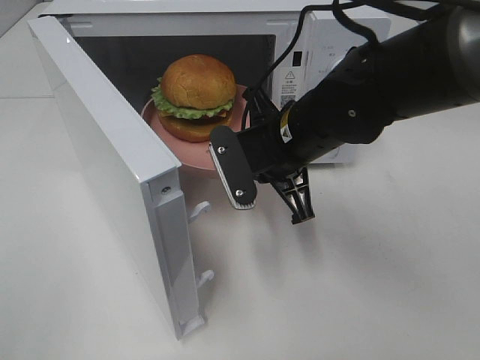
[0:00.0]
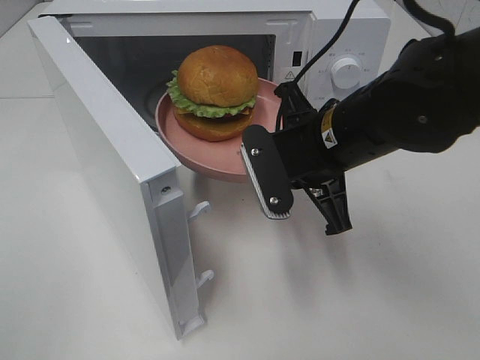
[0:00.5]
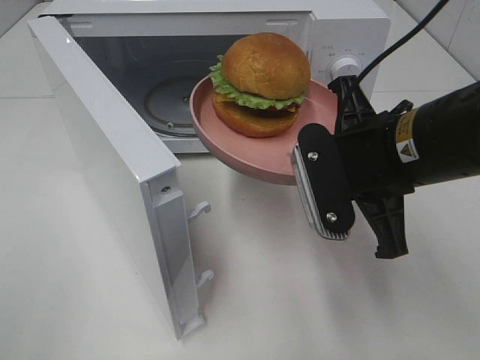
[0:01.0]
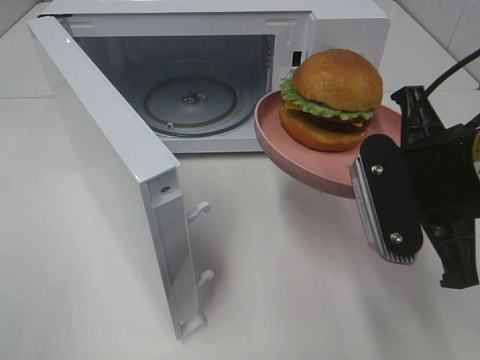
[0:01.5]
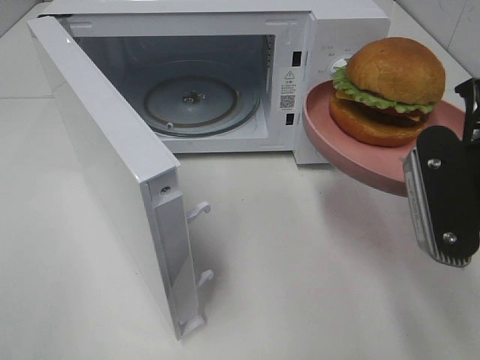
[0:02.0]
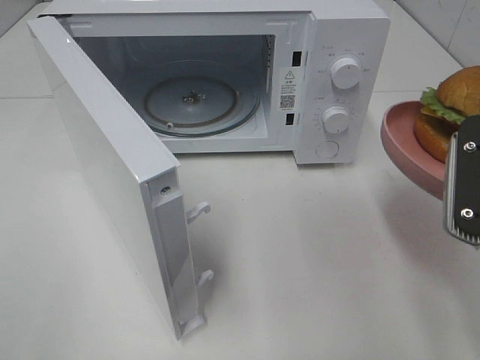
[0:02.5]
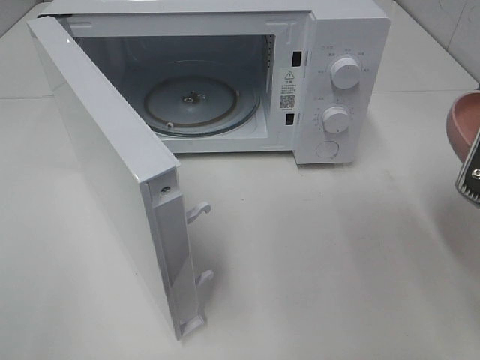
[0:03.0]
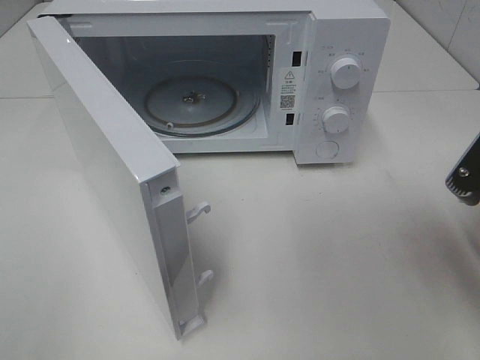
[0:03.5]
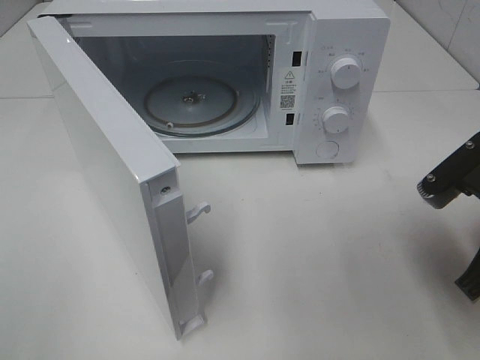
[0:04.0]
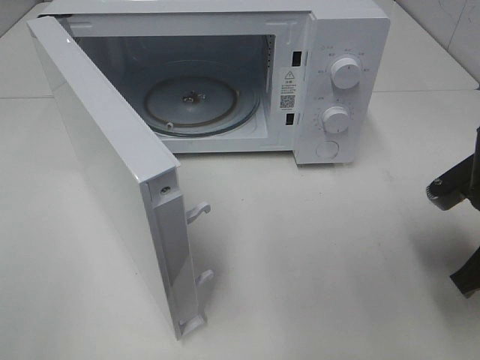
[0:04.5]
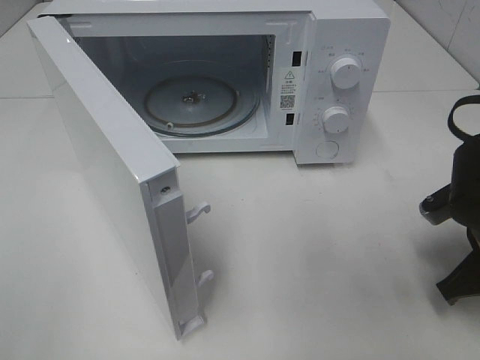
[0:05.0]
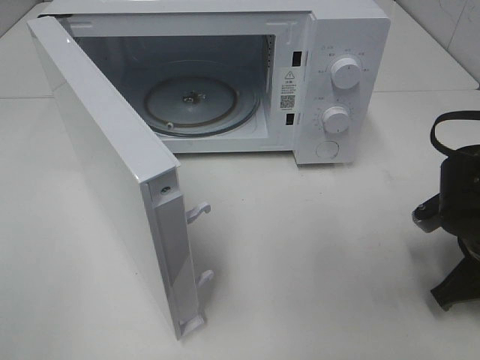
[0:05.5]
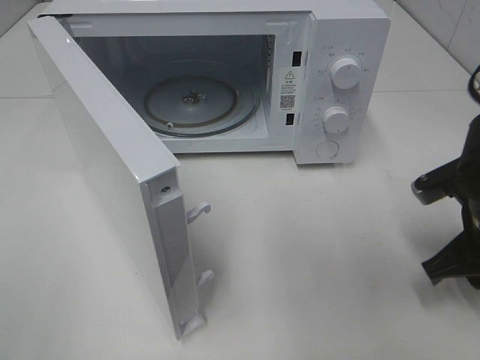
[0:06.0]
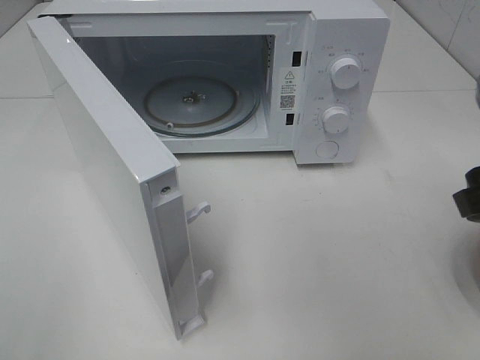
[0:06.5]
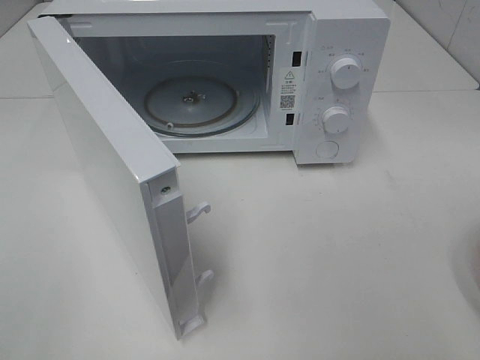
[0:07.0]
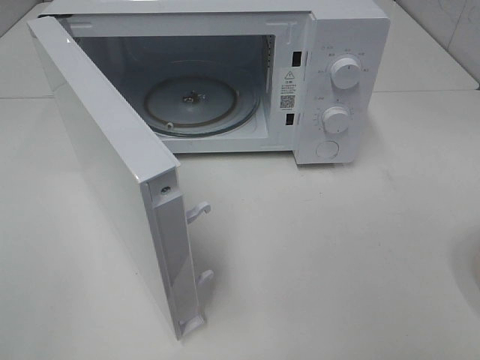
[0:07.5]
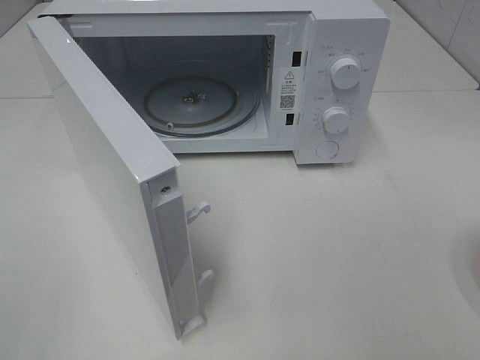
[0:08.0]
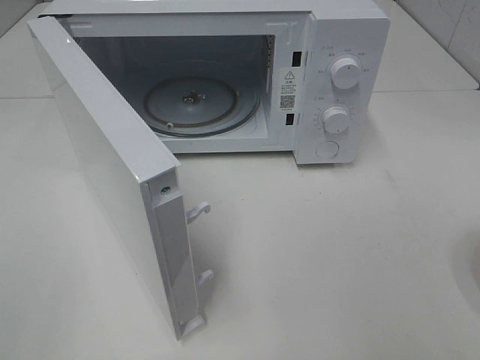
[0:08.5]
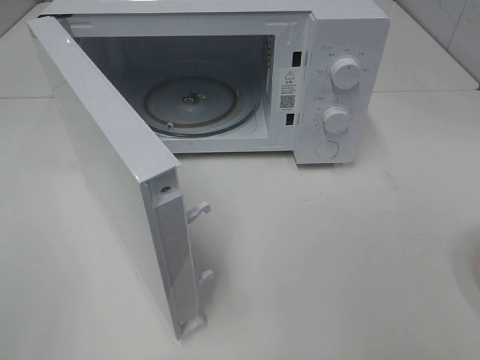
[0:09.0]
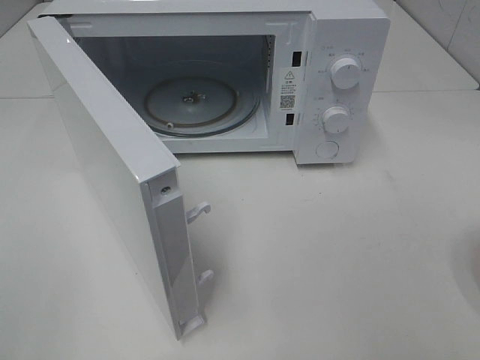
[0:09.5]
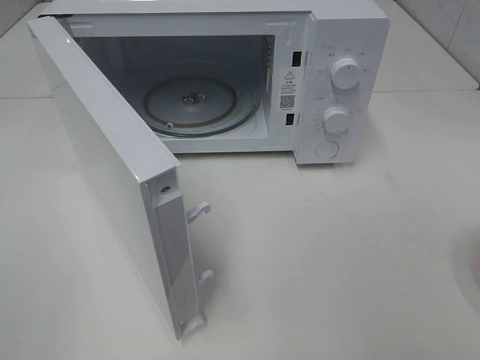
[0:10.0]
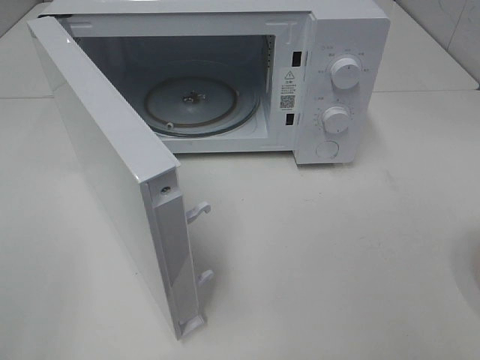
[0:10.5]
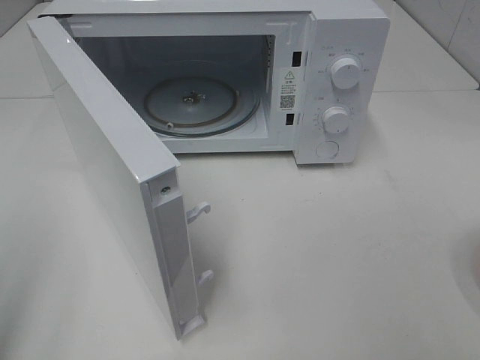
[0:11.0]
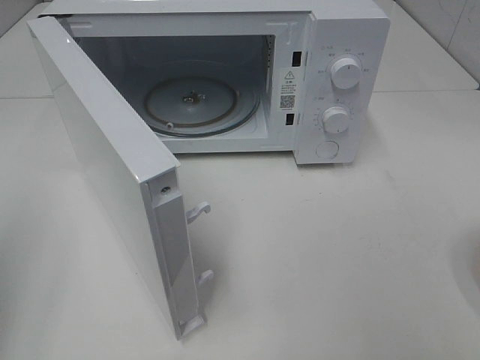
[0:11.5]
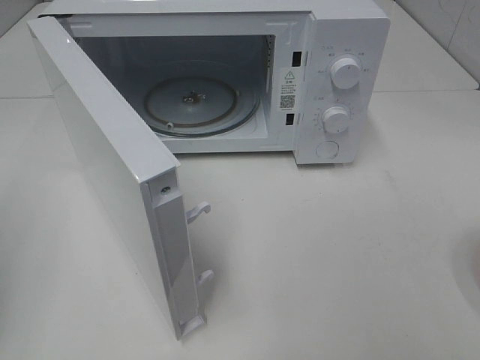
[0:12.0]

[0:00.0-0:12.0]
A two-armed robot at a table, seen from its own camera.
Task of the whole recording: Heat the burger.
Step, 0:00.0 to 0:05.5: Right hand: place the plate on the table.
0:00.0 to 0:02.0: The right gripper travels backward, to the right and upward by about 20 cm.
0:02.0 to 0:04.0: The right gripper goes approximately 5 cm downward.
0:04.0 to 0:06.0: The right gripper opens its fingers.
0:06.0 to 0:08.0: The right gripper moves backward and upward, about 25 cm.
0:08.0 to 0:10.0: Both grippers stay put.

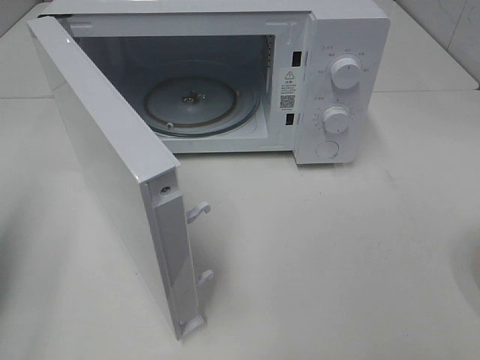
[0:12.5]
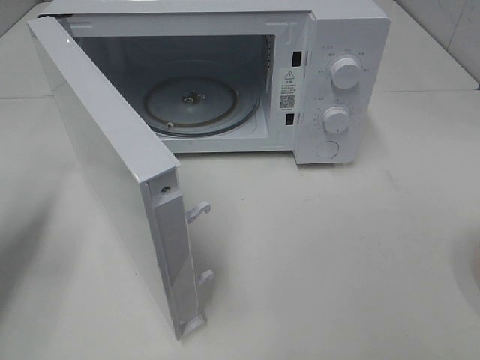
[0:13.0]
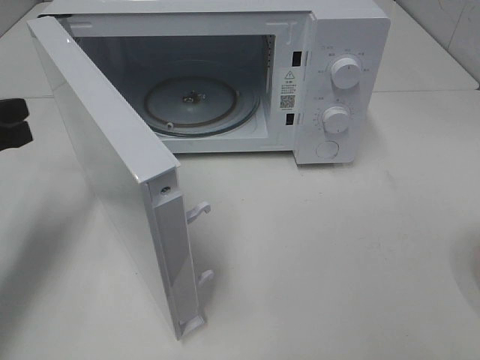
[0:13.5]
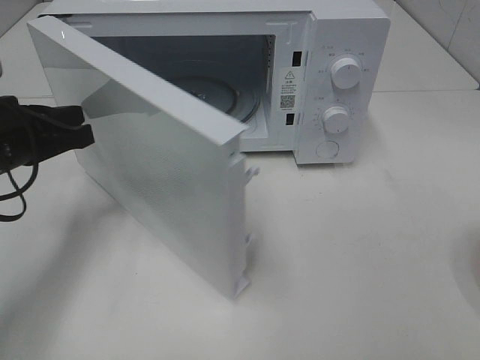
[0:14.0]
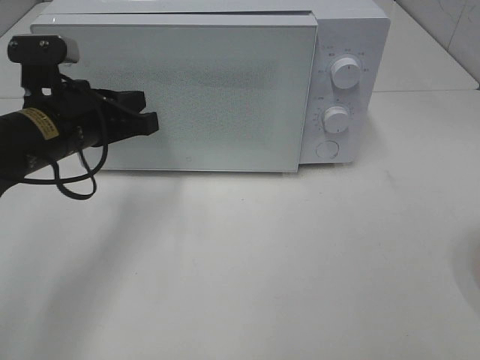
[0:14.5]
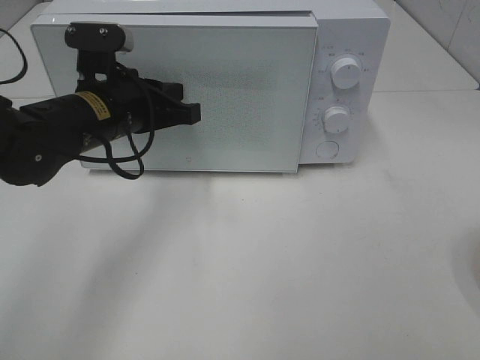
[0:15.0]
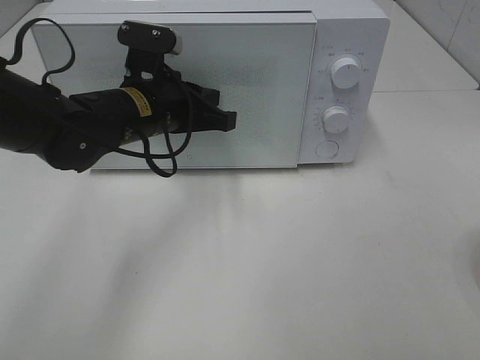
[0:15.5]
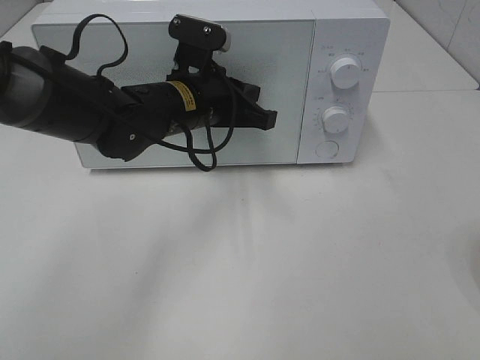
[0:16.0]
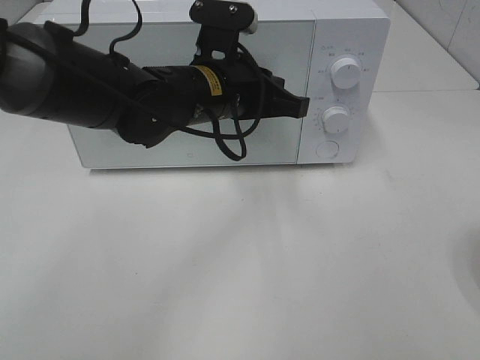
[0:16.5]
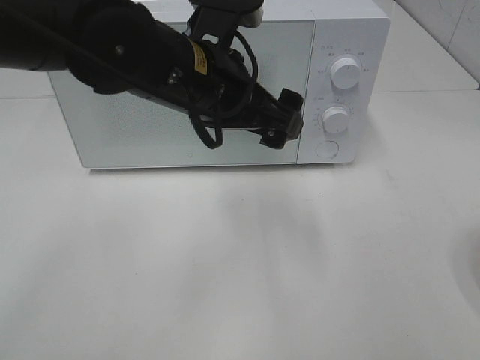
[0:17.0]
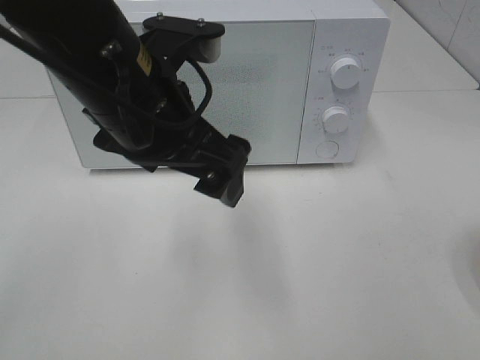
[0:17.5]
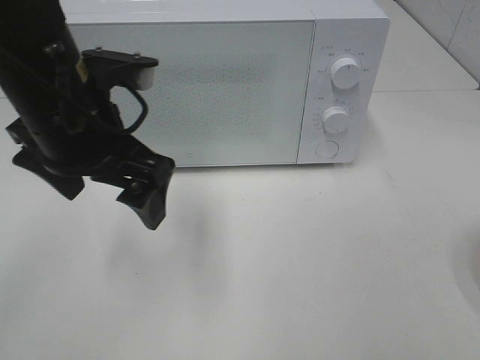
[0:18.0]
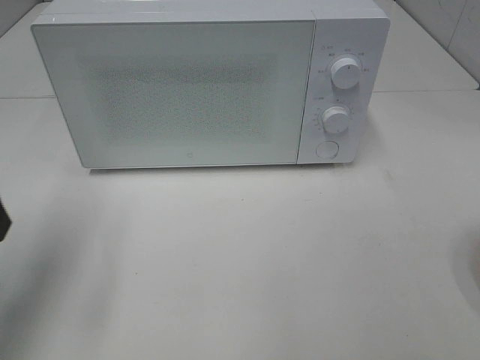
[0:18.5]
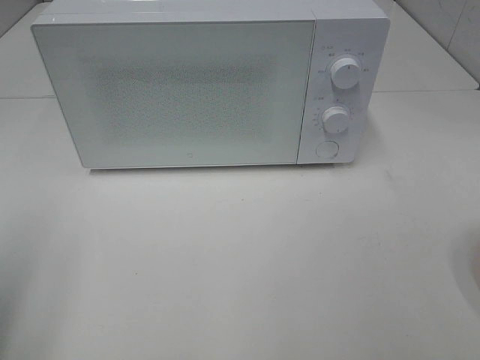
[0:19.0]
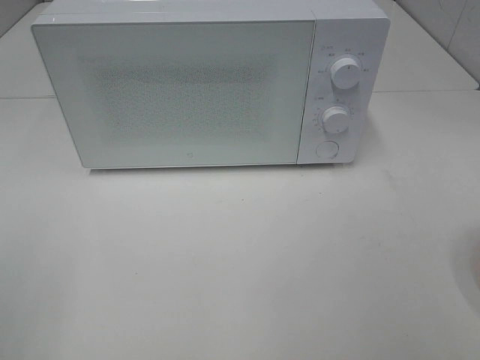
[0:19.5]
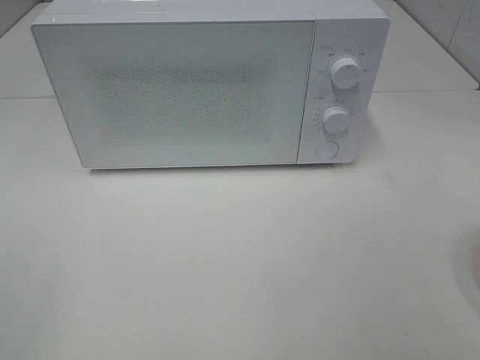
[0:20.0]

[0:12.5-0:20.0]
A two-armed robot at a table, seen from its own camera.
Task of the whole recording: Heat the burger.
Step, 0:12.5 to 0:16.0: Left hand: close the microwave door.
0:12.5 to 0:14.5: The left gripper goes some 20 cm to the right and forward.
0:14.5 to 0:16.5: The left gripper moves to the right, some 15 cm.
0:16.5 to 0:18.0: The left gripper is displaced to the left and backward by some 15 cm, and opens up.
0:18.0 to 0:20.0: The left gripper heads backward and to the left, covering approximately 30 cm.
